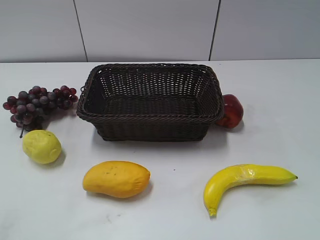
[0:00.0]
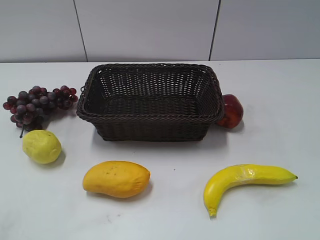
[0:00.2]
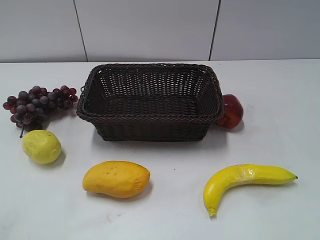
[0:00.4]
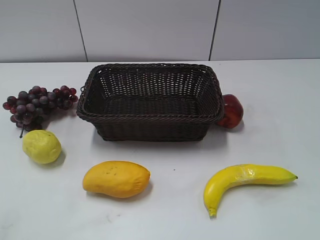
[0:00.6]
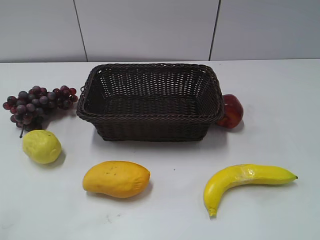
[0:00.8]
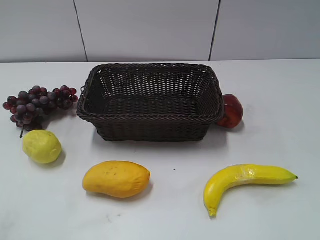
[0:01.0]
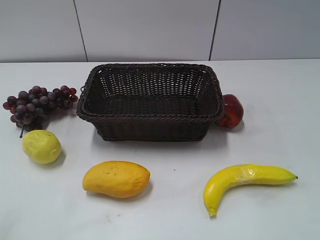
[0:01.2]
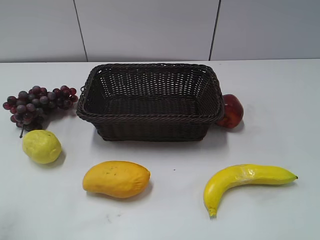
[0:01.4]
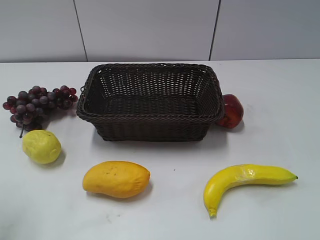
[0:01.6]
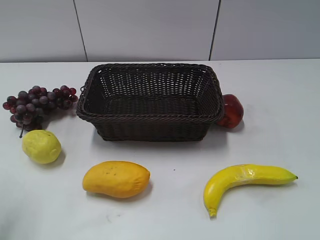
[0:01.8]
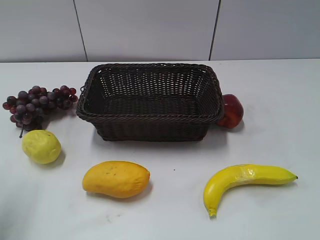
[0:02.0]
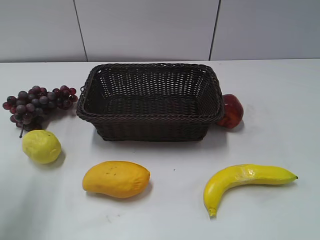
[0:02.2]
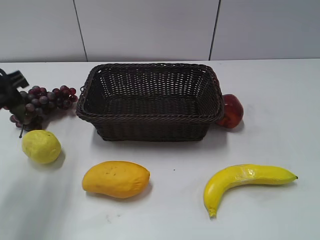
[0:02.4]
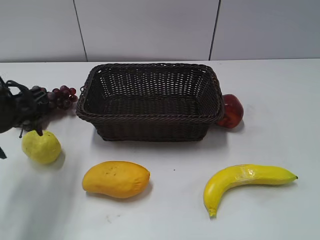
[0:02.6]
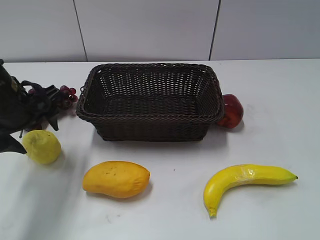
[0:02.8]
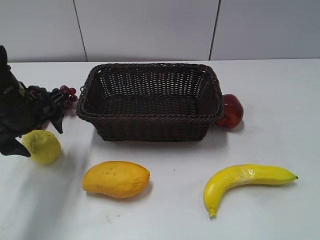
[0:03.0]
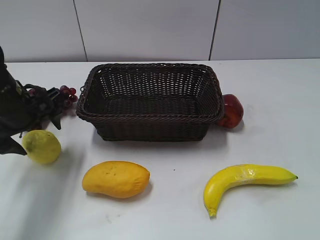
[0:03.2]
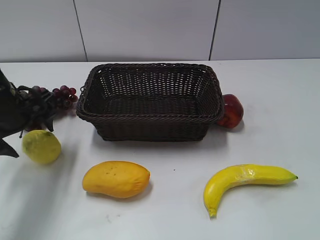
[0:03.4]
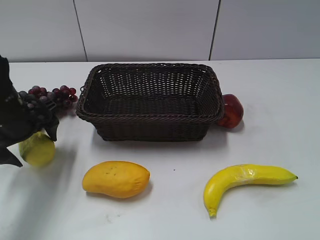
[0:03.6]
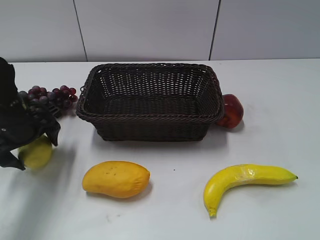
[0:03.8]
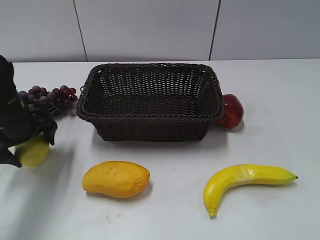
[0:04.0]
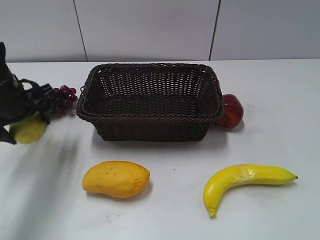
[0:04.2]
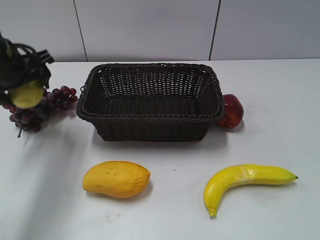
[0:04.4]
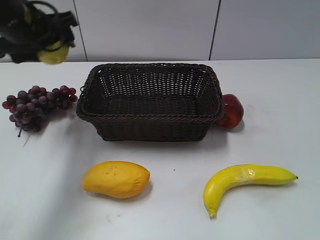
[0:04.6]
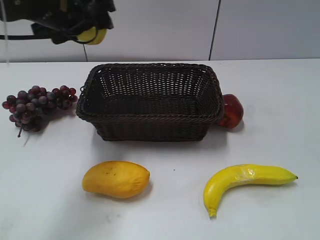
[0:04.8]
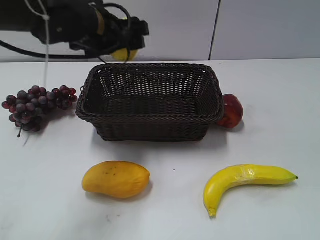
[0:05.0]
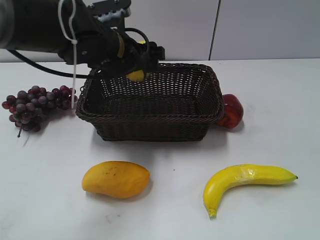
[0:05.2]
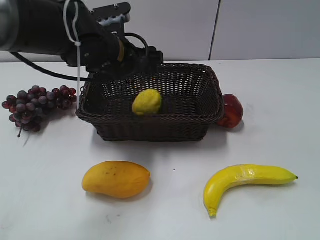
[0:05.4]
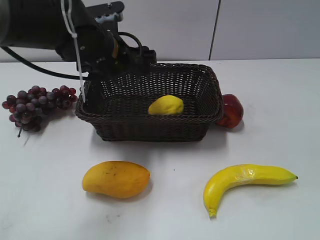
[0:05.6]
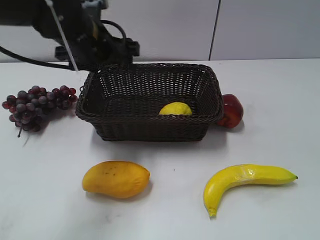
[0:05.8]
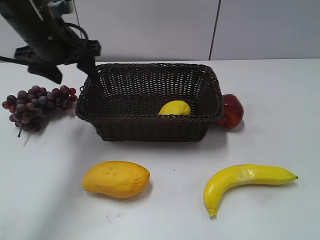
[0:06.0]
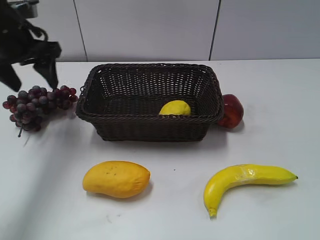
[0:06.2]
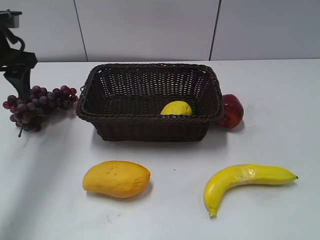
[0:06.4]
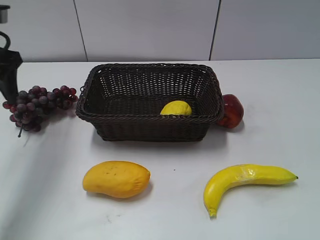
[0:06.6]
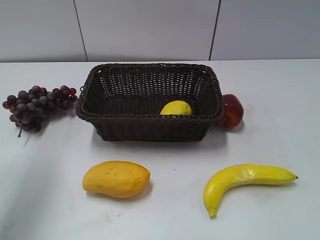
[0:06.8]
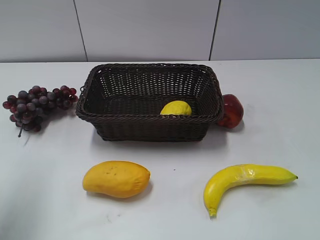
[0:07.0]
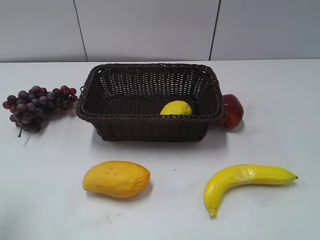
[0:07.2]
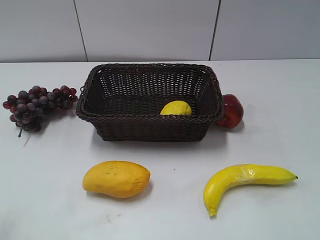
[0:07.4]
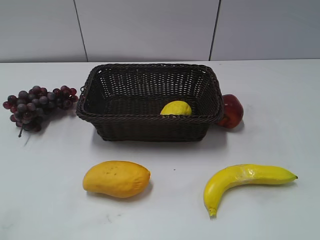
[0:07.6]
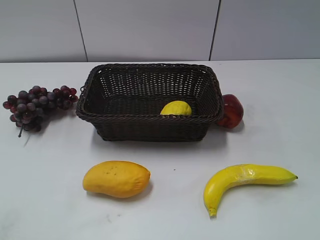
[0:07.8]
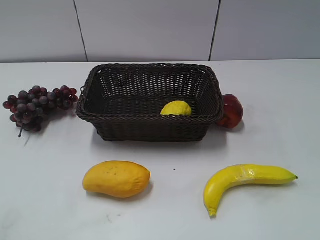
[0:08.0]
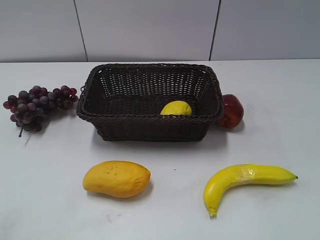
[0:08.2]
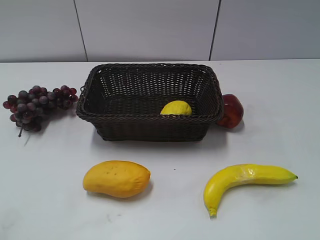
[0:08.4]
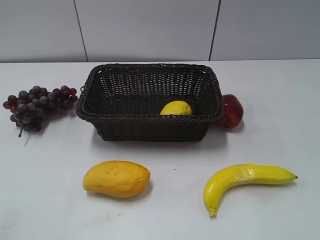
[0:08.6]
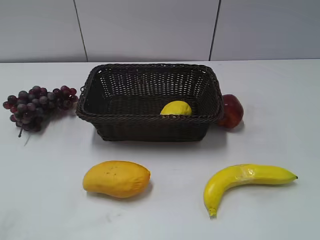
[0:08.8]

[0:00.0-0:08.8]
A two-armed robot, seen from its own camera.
Step, 0:02.4 to 0:04.0: Grasp the lemon with left gripper.
Step, 0:04.2 to 0:05.6: Place the lemon in the basket with left gripper.
0:01.4 to 0:03.0: The left gripper travels forward, downward and to the right by some 25 cm.
0:03.0 to 0:04.4: The left gripper is displaced upward by about 5 cm.
0:04.4 to 0:05.8: The left gripper is displaced to the right by approximately 10 cm.
0:05.8 to 0:07.4: The left gripper goes some 30 cm backward and to the left.
